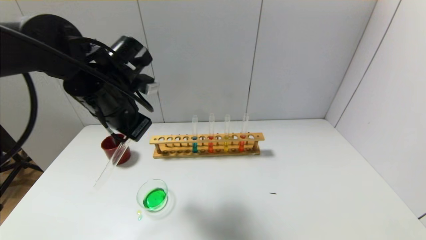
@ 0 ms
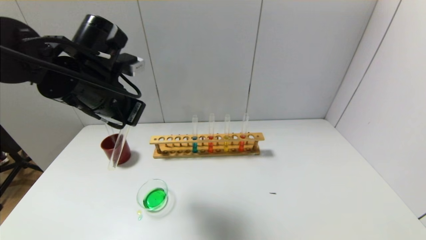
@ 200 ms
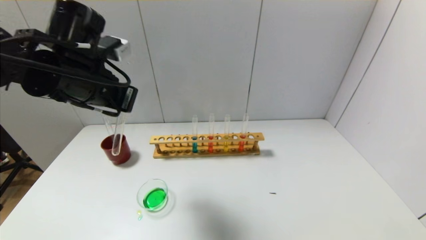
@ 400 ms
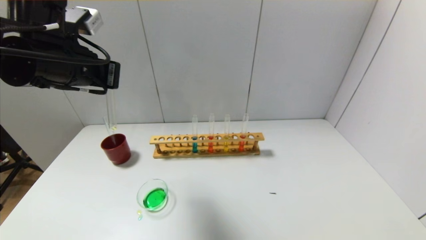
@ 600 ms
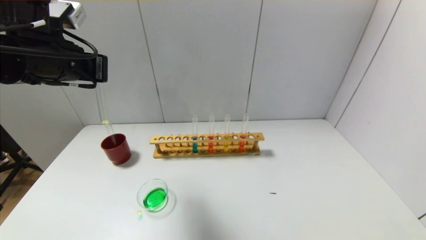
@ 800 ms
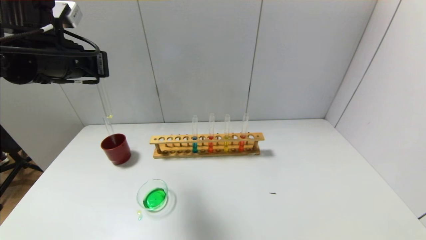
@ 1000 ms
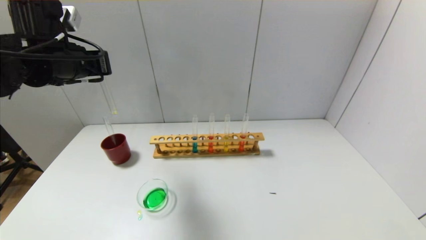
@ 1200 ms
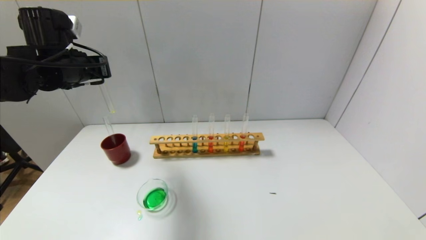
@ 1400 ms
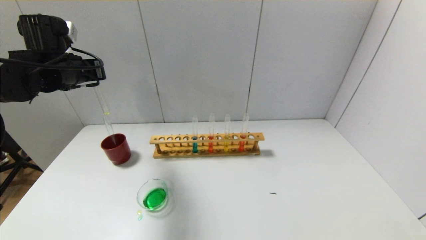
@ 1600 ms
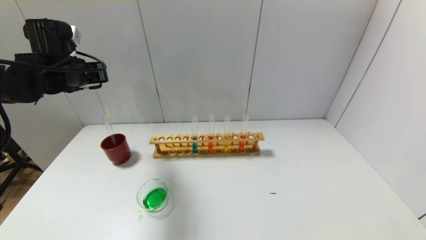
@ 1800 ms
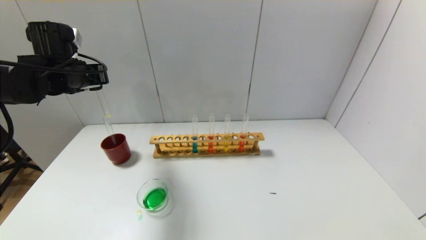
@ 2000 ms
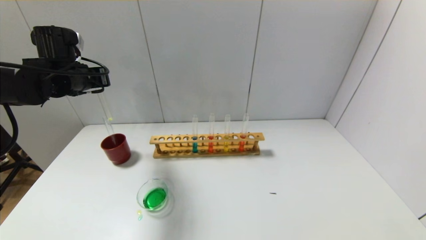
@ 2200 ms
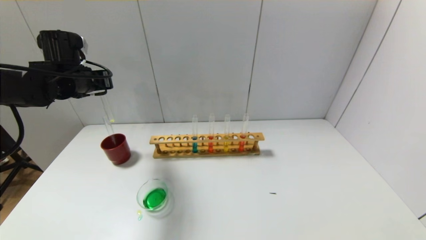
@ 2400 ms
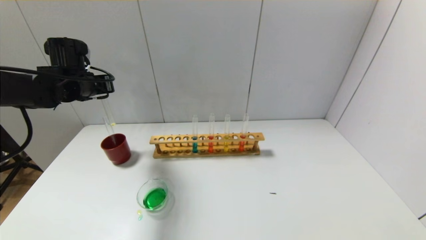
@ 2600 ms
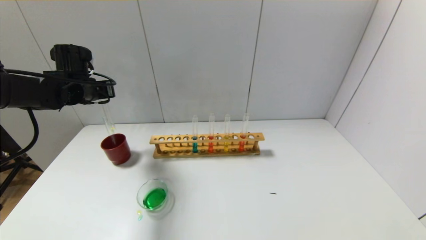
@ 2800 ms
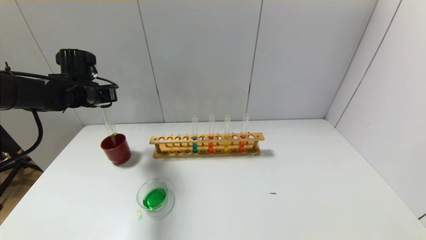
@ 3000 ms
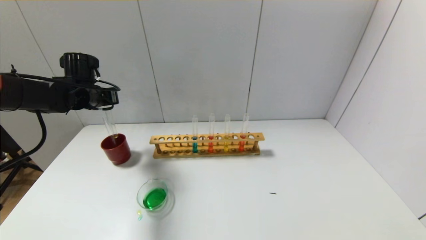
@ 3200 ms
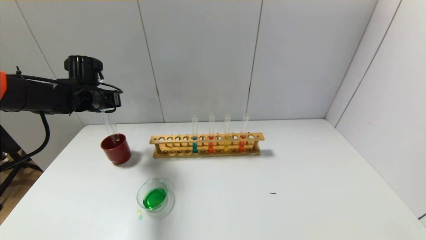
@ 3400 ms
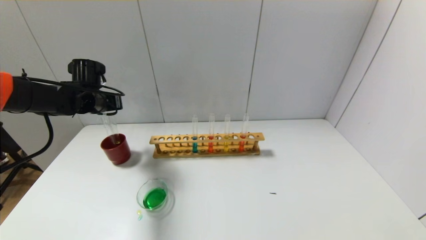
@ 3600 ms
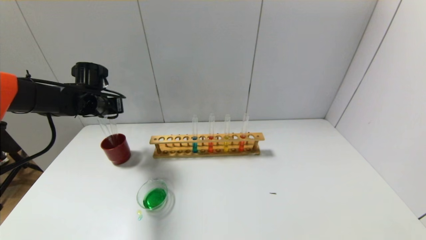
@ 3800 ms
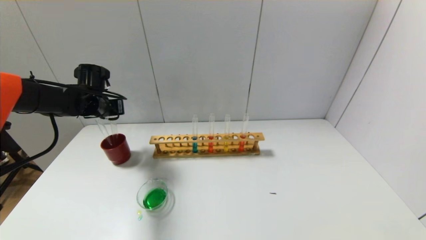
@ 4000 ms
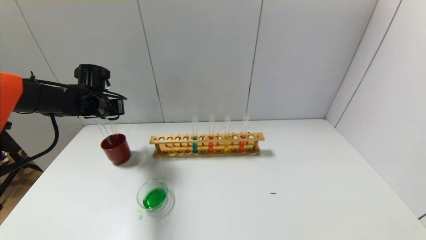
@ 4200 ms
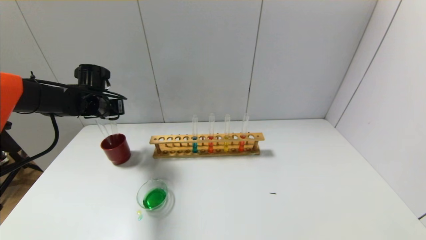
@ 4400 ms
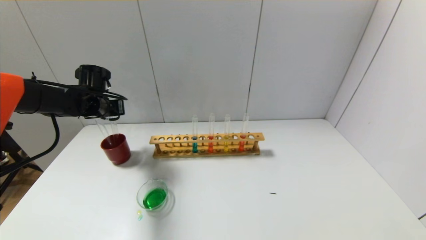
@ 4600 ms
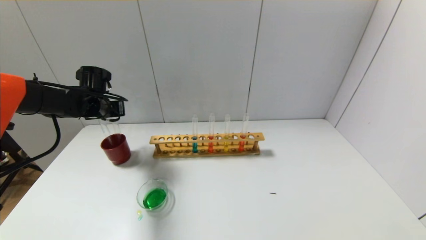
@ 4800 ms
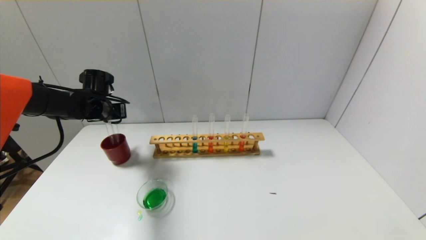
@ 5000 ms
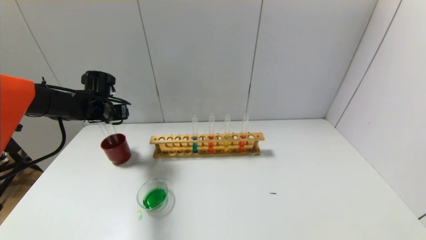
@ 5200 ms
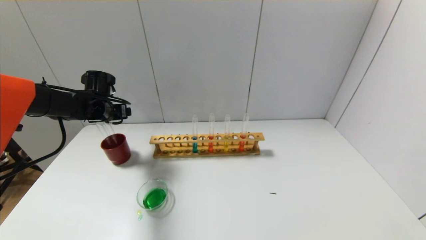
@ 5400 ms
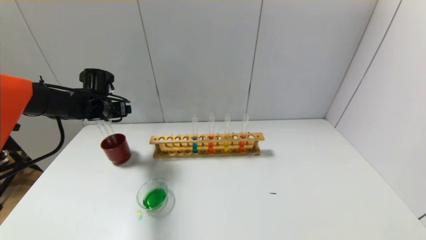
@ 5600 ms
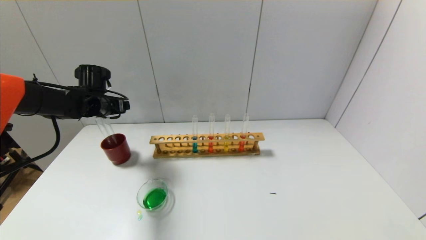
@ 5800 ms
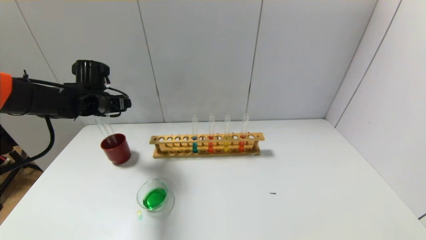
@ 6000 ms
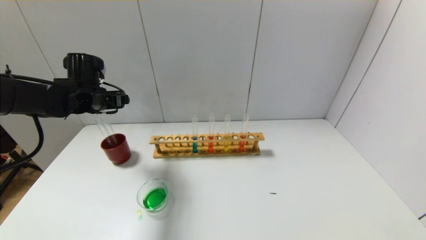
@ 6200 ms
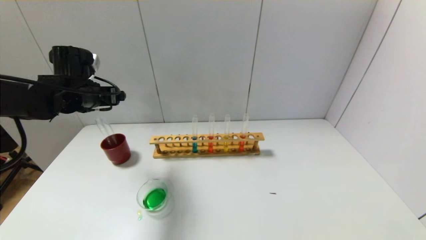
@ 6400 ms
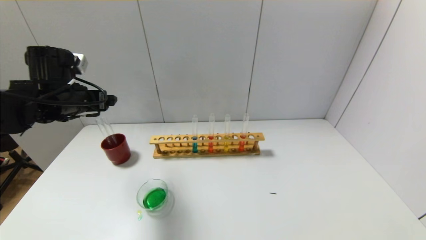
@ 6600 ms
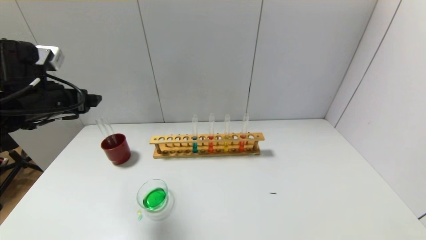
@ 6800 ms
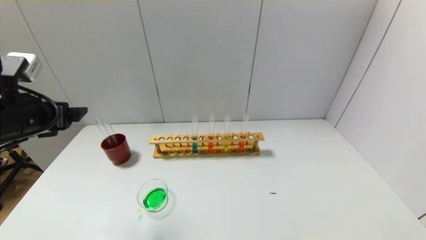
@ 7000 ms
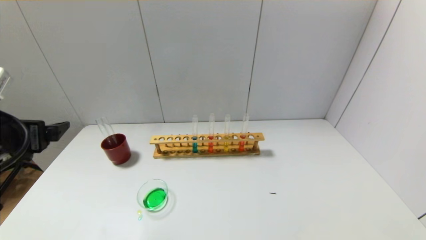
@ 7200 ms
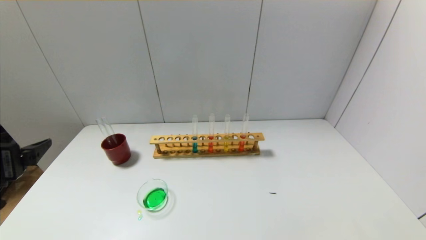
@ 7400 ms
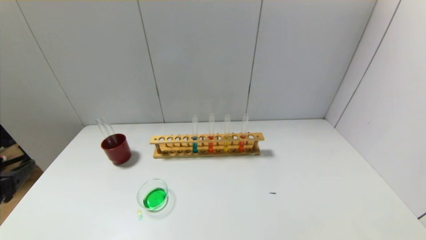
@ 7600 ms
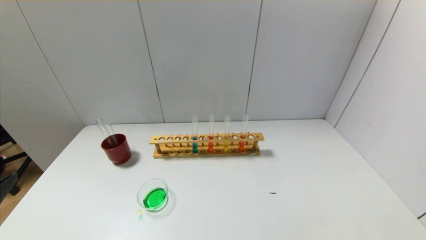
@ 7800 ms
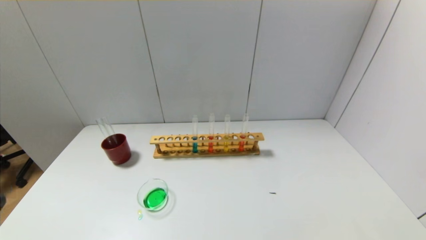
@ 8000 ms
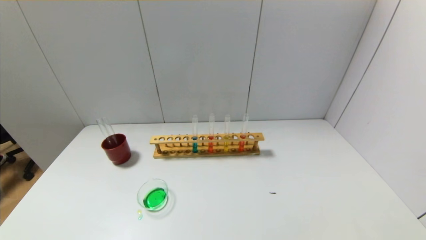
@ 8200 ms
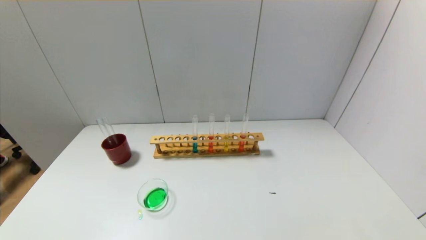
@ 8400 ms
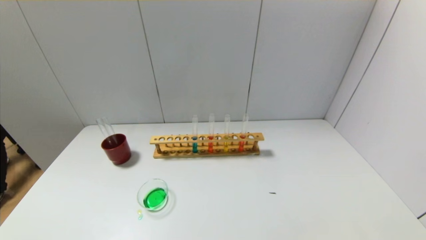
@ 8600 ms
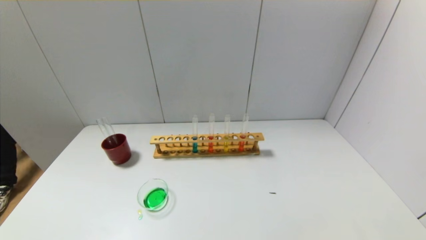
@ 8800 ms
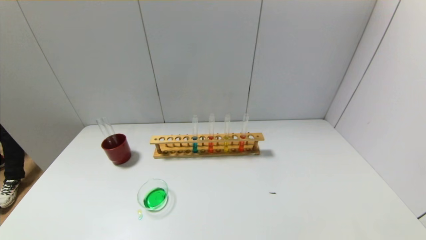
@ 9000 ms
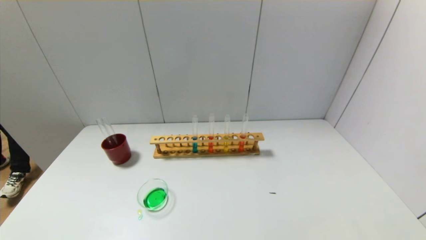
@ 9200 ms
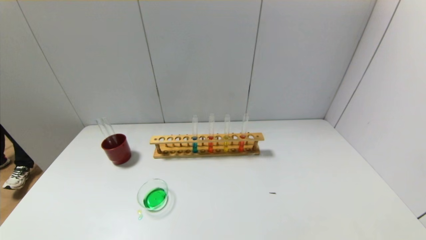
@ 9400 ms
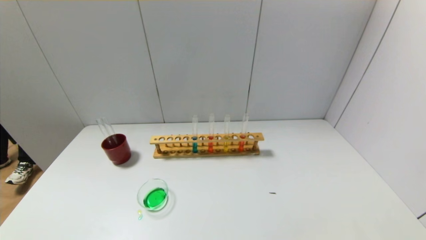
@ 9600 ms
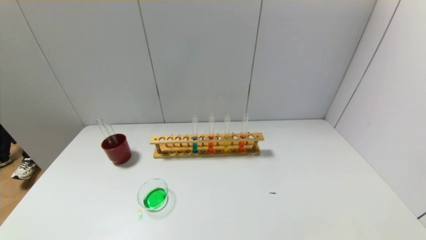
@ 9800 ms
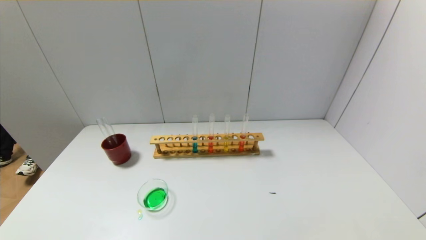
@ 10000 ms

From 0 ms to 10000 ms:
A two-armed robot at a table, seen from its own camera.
Step, from 0 ms to 5000 ms: Place the test tube into the brown cup with the left gripper.
From 0 ms to 1400 ms: The left gripper heads to the left and forward, covering about 15 cm.
From 1400 ms to 2800 ms: The left gripper moves downward and forward, about 10 cm.
From 2800 ms to 4200 ms: The left gripper shifts by approximately 5 cm.
From 4200 ms to 5800 ms: The left gripper opens up.
From 5800 ms to 7200 ms: The left gripper heads backward, covering roughly 25 cm.
From 7200 ms to 8600 ms: The left gripper moves backward and downward, about 25 cm.
From 8600 ms to 10000 ms: The left gripper travels downward by some 5 cm.
